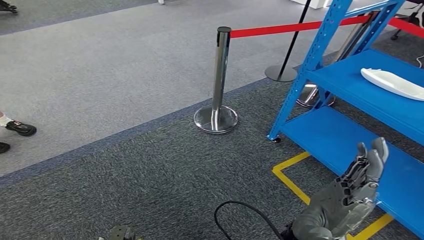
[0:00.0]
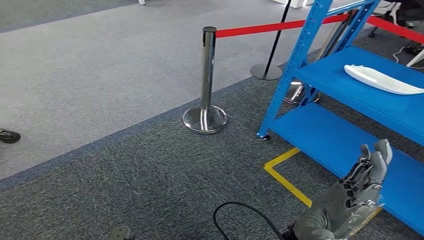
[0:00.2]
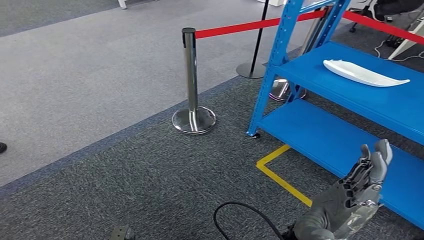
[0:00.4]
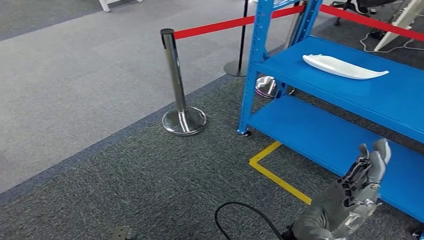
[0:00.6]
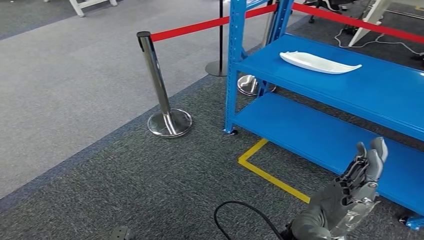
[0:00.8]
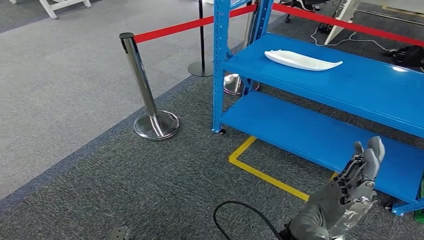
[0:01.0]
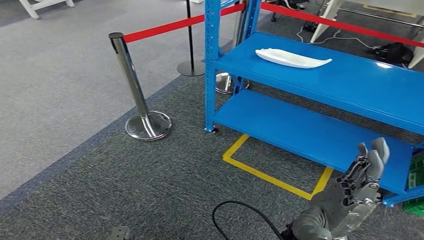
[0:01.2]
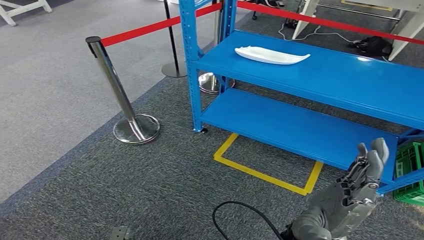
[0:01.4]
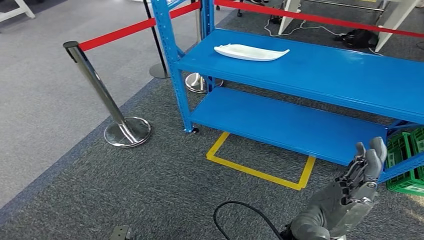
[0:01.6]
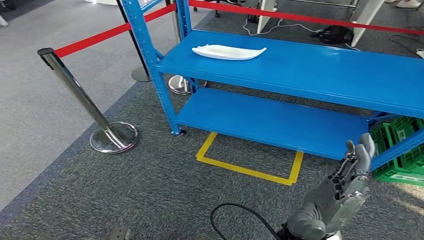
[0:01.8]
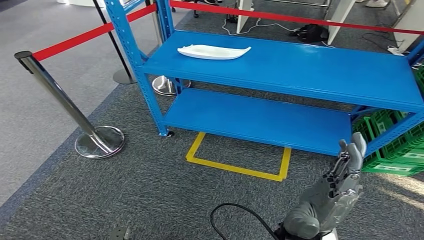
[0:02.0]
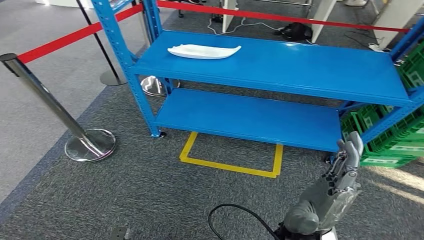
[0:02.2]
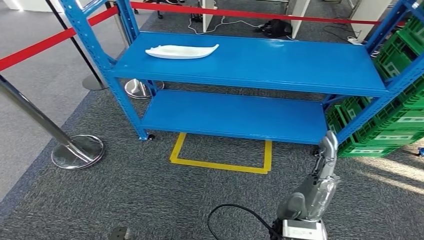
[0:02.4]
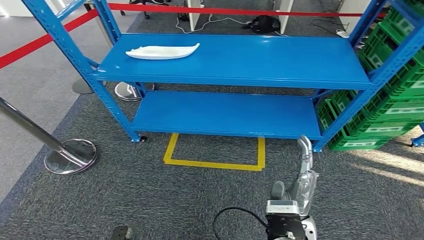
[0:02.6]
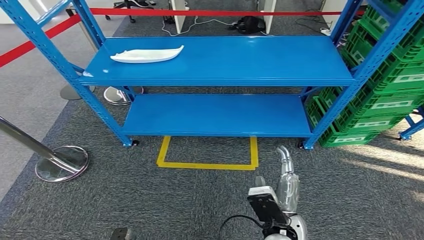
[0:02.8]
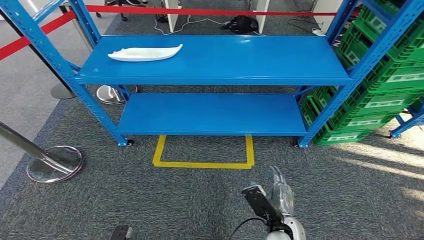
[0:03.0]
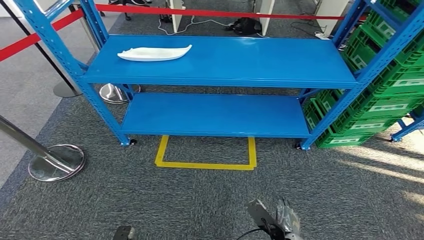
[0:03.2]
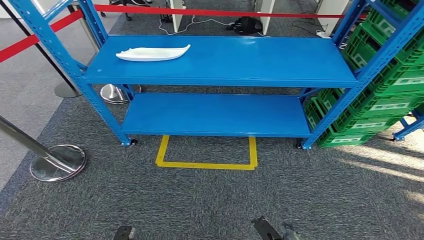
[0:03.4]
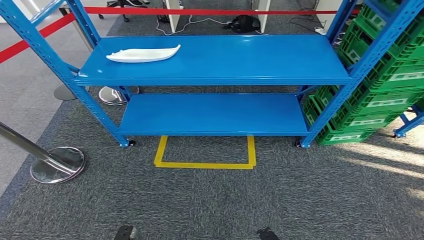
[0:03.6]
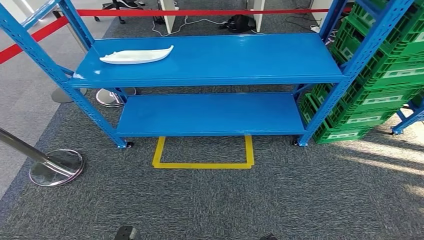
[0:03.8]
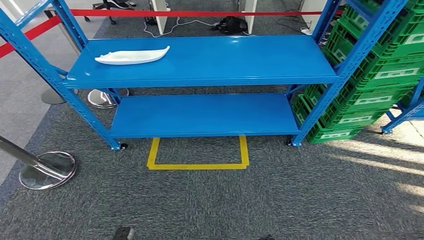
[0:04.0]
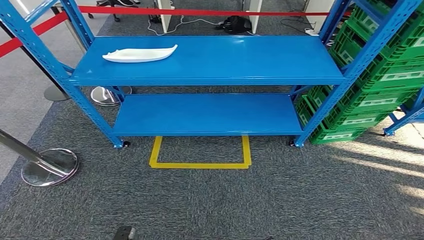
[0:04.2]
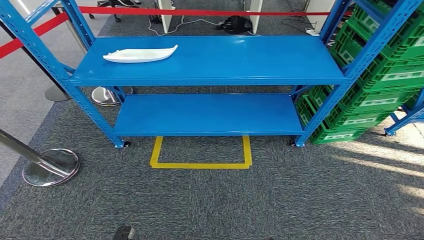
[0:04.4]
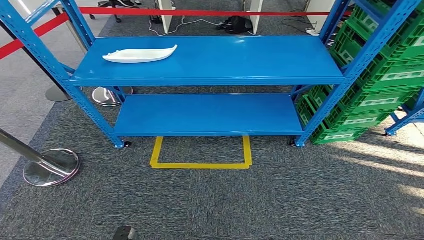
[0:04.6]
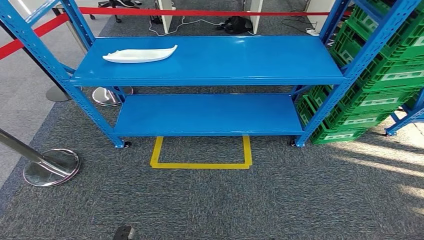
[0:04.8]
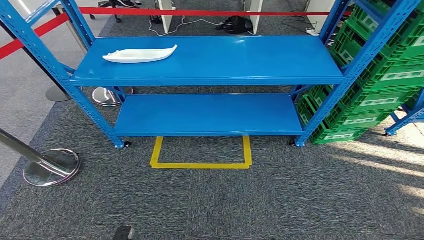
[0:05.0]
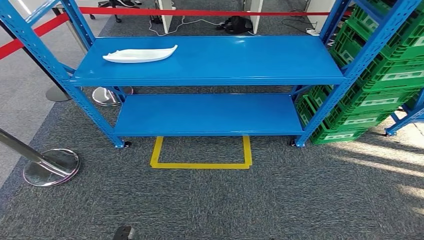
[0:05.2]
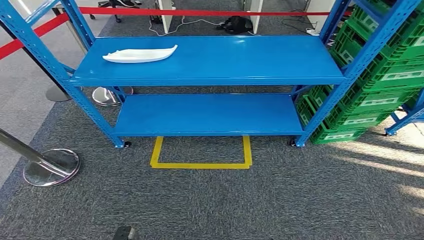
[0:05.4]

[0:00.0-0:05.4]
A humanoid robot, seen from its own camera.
Step, 0:00.0 to 0:05.2: Move to the initial position of the workbench.
0:04.0 to 0:05.4: The hands stay close to where they were, moving slightly.
